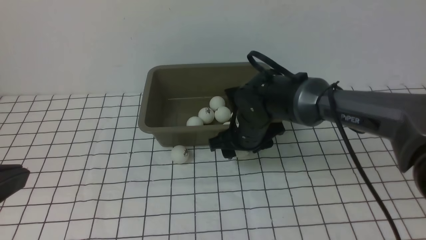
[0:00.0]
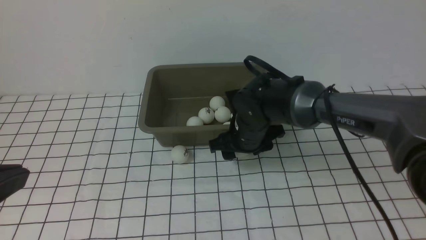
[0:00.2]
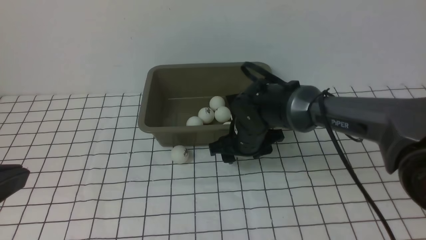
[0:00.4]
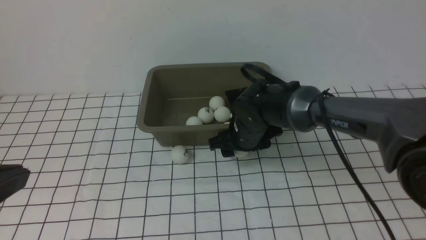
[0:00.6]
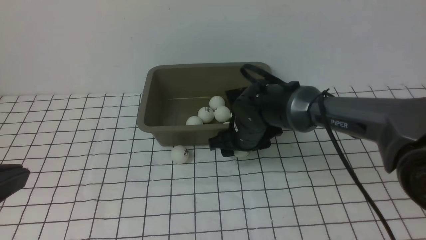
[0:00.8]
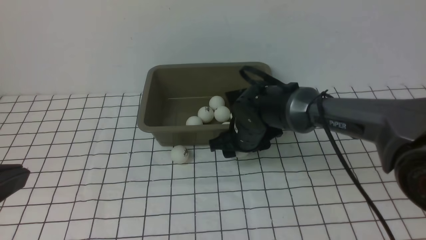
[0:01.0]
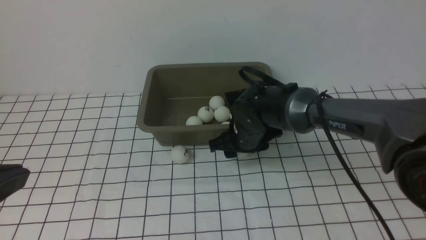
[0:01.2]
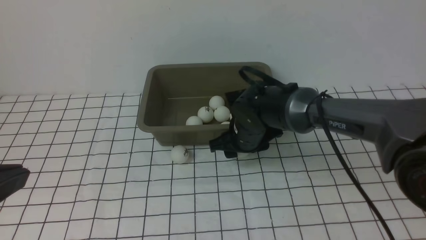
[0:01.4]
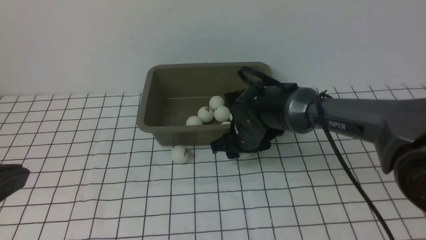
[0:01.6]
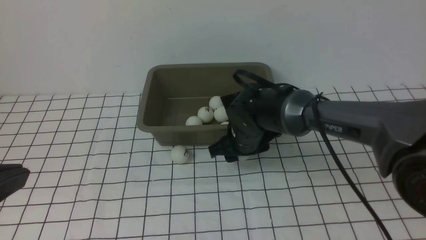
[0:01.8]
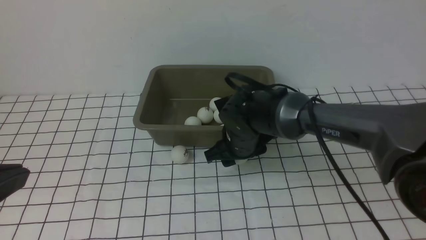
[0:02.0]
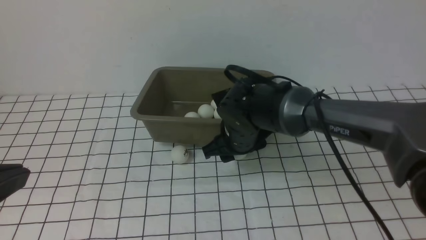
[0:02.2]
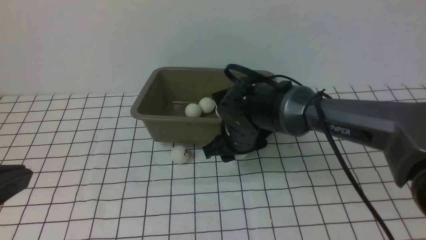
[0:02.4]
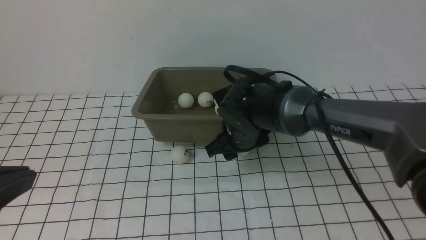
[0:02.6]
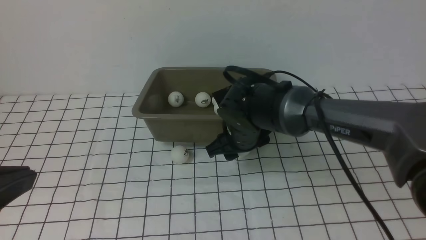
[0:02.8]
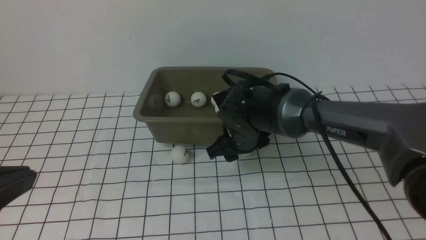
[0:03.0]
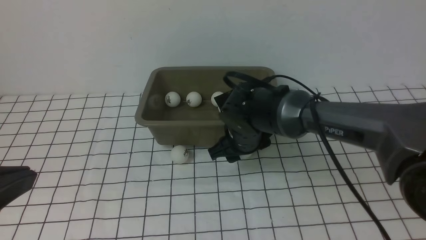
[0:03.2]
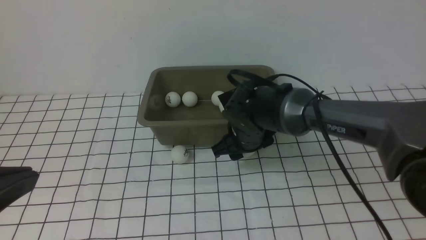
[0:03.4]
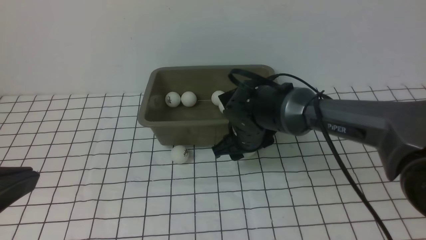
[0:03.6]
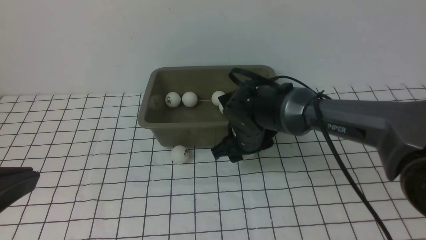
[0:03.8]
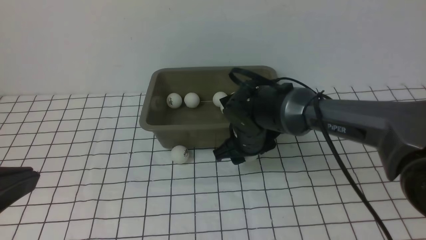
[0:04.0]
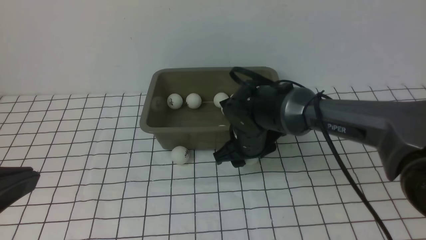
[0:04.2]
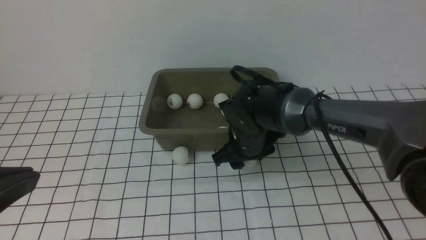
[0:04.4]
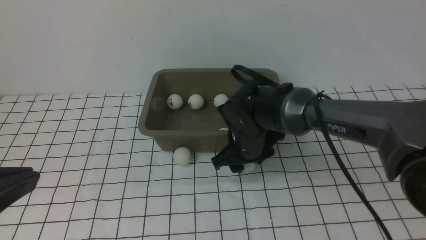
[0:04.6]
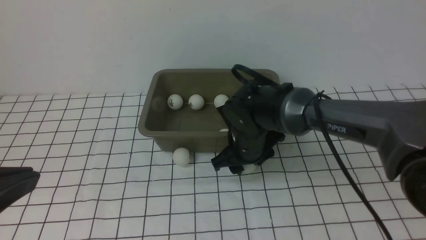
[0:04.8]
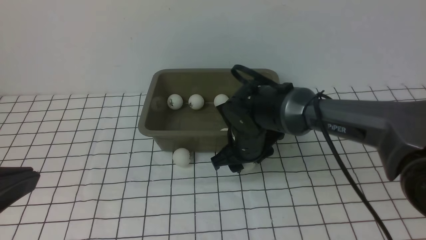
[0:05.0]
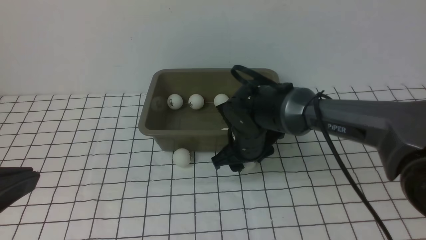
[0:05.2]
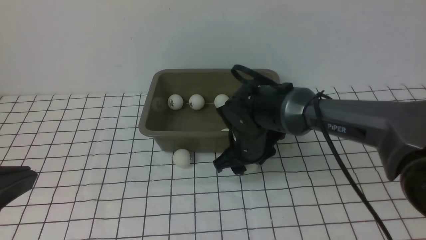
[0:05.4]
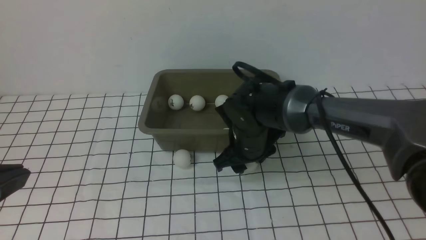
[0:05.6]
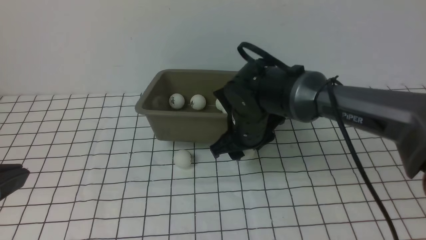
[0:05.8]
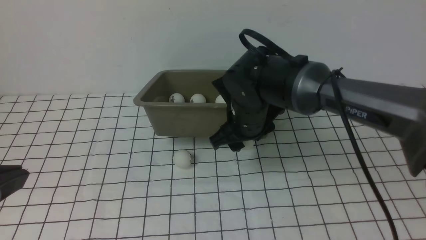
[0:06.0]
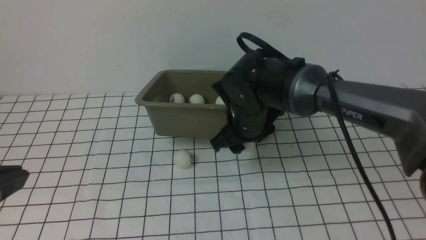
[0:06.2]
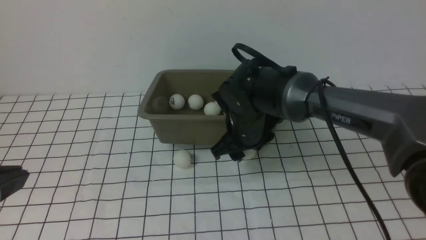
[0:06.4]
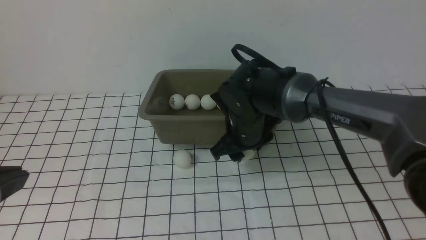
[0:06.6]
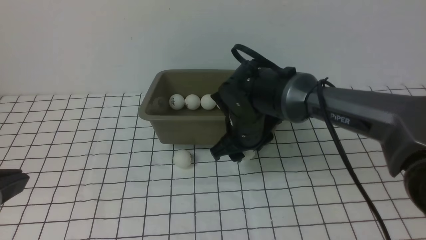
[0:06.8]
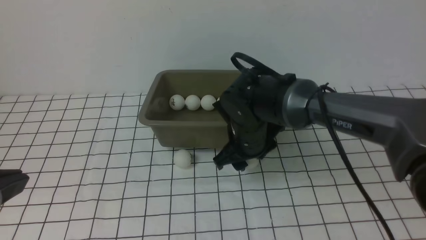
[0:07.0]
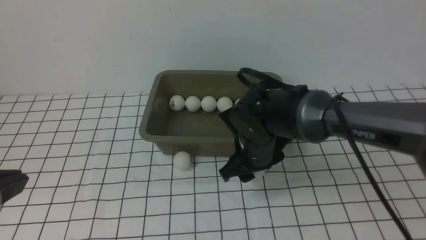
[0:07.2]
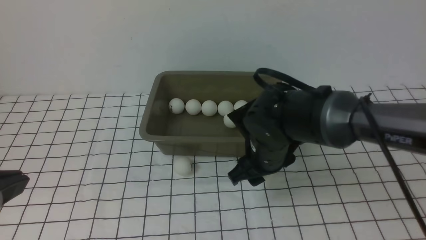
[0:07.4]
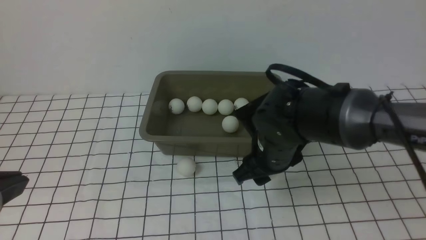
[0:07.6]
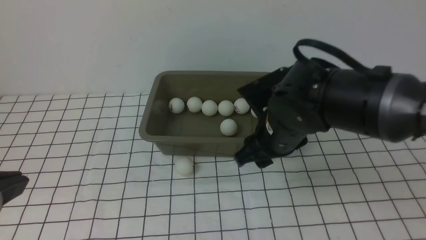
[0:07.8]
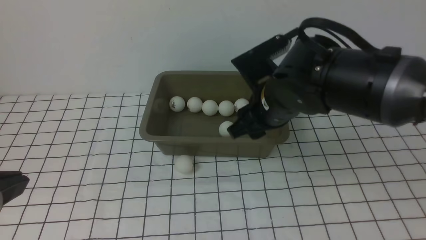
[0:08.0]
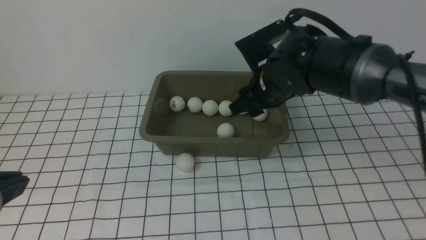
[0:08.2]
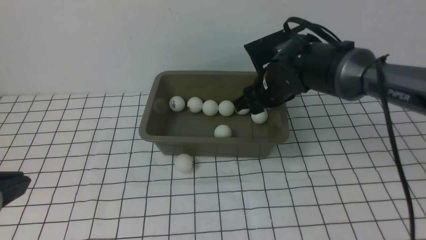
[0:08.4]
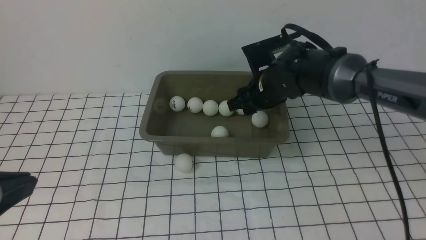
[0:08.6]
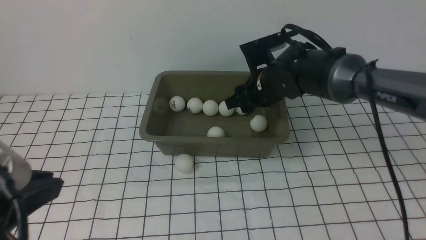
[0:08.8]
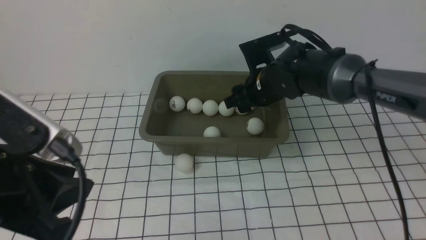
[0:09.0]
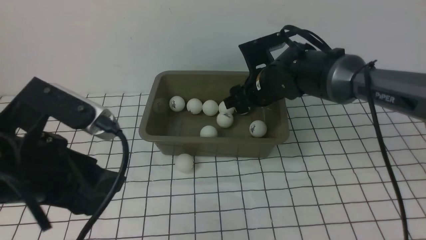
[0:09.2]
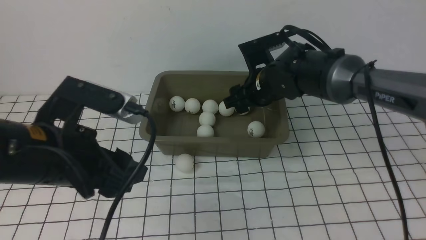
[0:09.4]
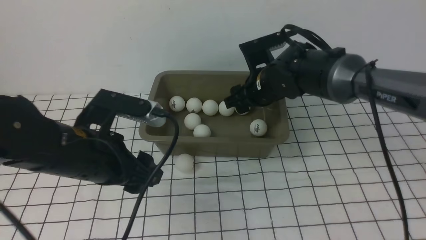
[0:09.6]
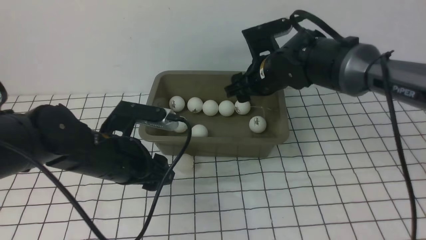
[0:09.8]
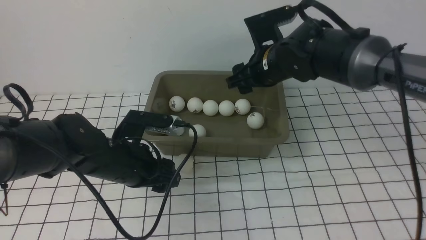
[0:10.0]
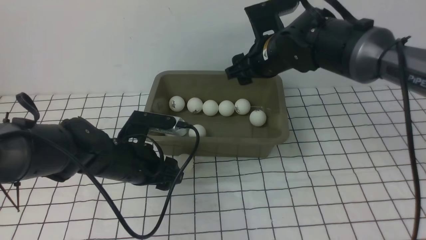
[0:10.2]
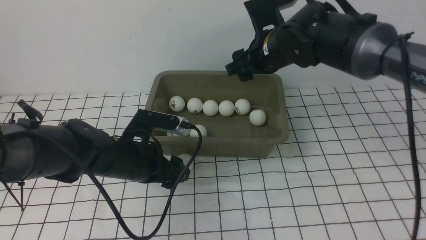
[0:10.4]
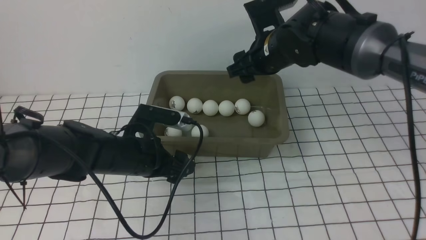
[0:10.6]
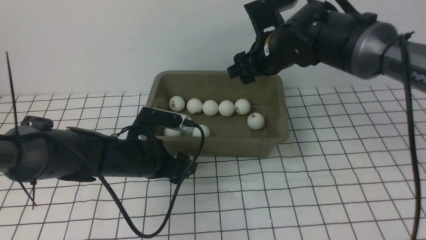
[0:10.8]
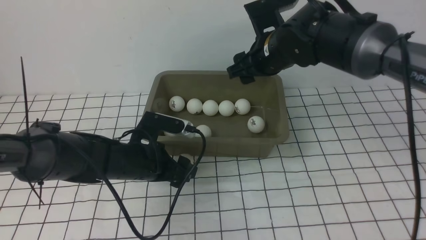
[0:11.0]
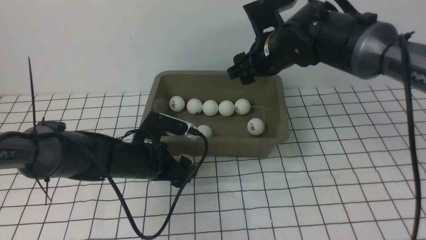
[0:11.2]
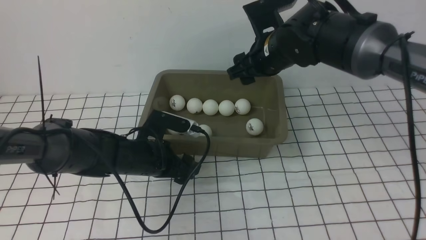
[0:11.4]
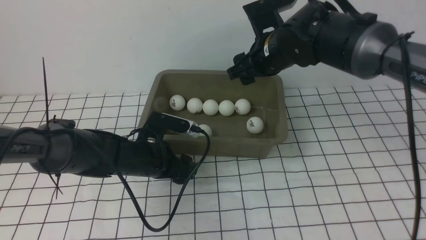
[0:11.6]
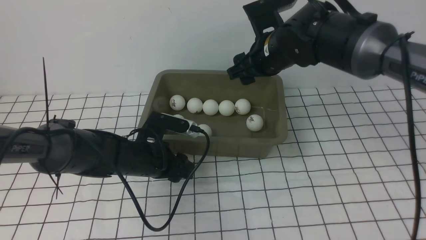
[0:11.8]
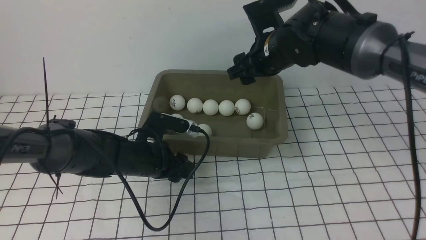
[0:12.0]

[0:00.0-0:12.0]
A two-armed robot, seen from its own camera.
Step, 0:00.0 to 0:07.6: use the right arm to clamp the table tennis ball closest to it.
Step, 0:07.8 to 0:09.2: use the right arm to put the table tennis ball into the box.
0:00.0 to 0:06.0: The grippers make only small movements.
0:06.0 to 0:07.6: The right gripper shifts some 5 cm backward.
0:07.6 to 0:09.0: The right gripper is displaced forward by approximately 10 cm. Meanwhile the left gripper shifts by approximately 5 cm, and opens up.
0:09.0 to 0:10.4: The left gripper heads downward and forward, covering approximately 25 cm, and opens. The right gripper moves upward, approximately 5 cm.
0:10.4 to 0:12.0: The left gripper closes its fingers.

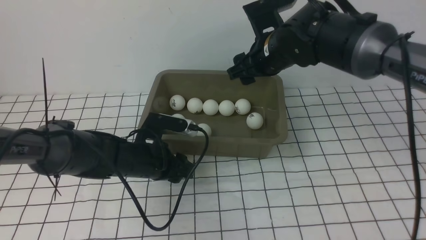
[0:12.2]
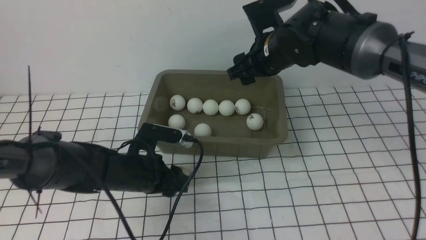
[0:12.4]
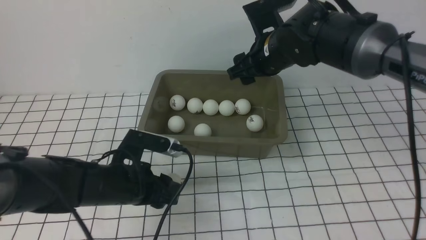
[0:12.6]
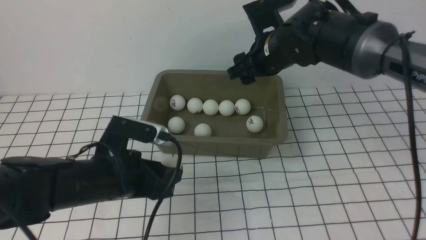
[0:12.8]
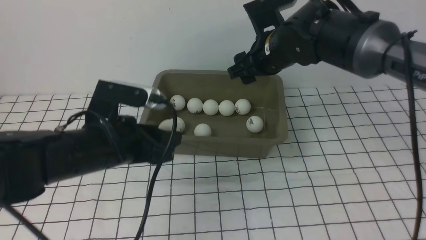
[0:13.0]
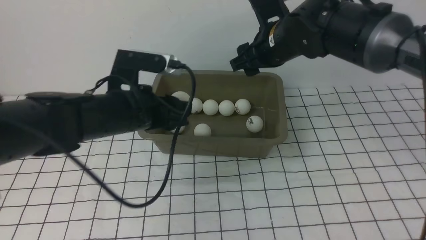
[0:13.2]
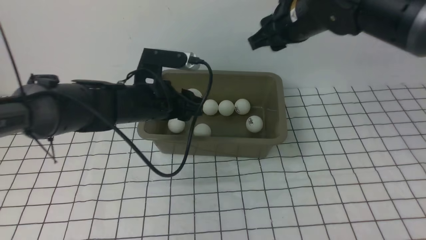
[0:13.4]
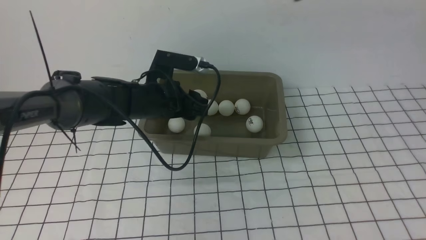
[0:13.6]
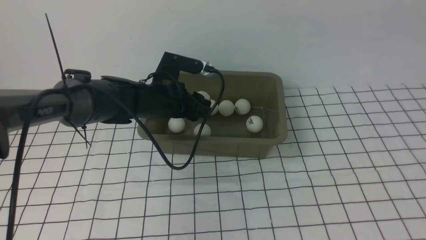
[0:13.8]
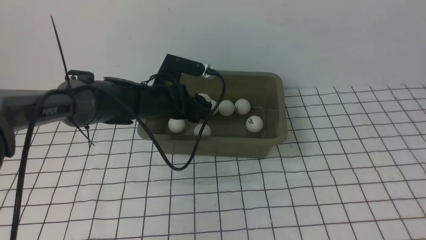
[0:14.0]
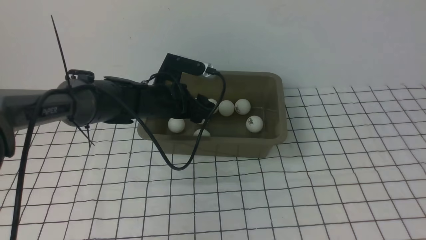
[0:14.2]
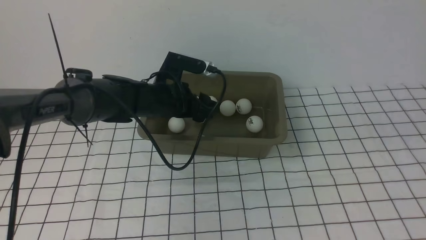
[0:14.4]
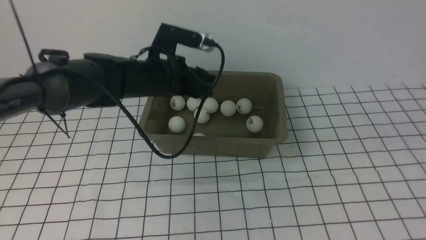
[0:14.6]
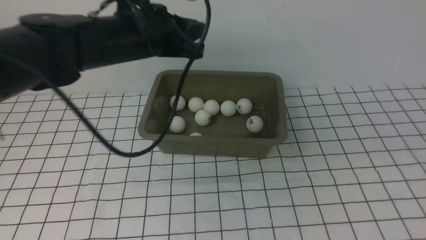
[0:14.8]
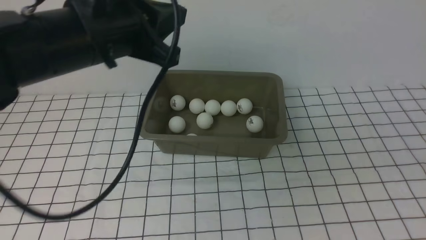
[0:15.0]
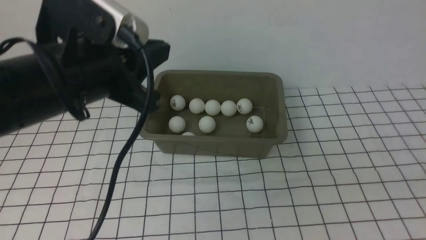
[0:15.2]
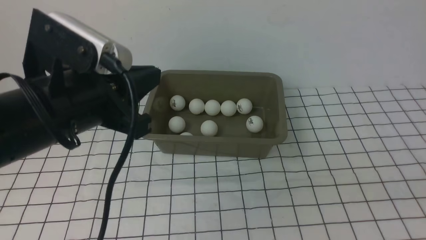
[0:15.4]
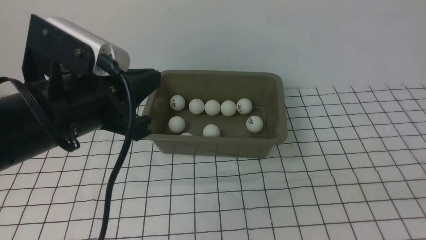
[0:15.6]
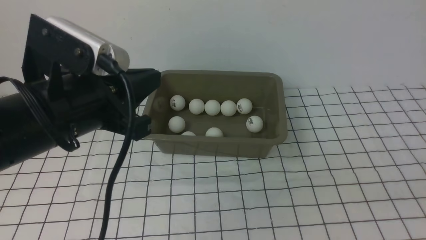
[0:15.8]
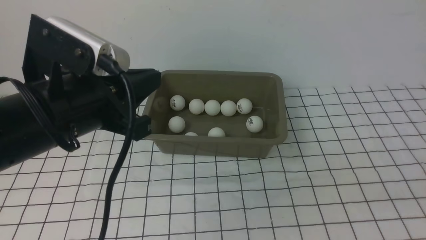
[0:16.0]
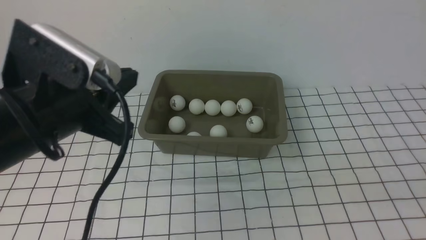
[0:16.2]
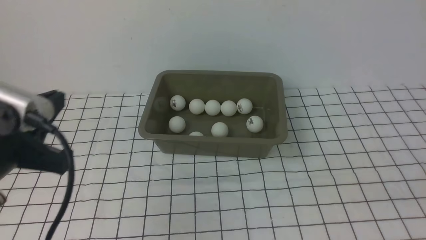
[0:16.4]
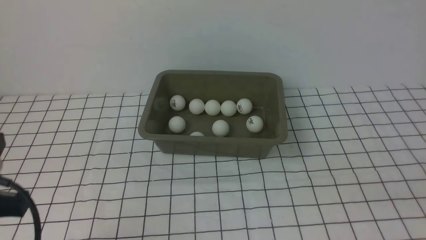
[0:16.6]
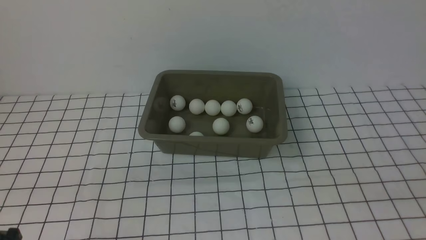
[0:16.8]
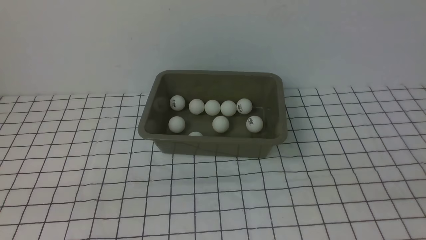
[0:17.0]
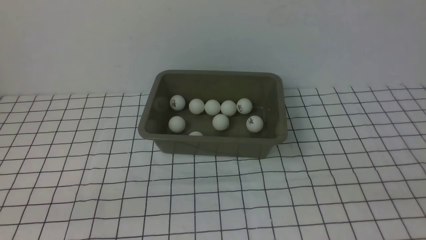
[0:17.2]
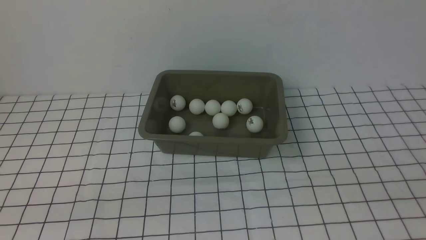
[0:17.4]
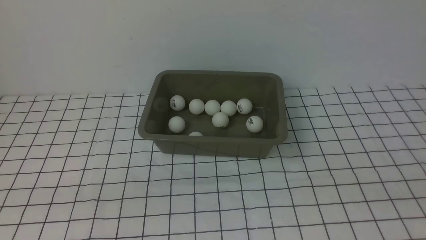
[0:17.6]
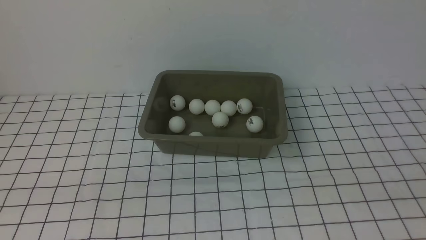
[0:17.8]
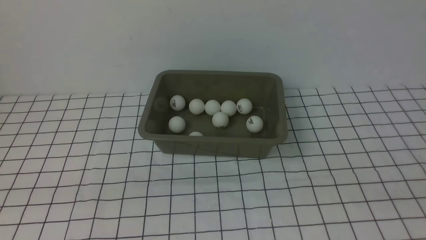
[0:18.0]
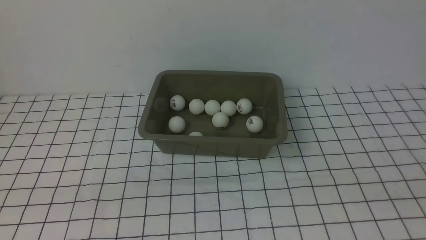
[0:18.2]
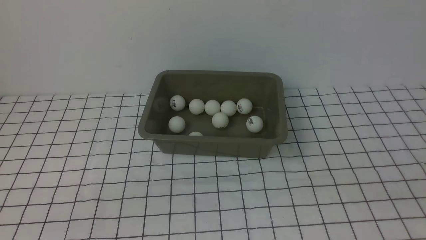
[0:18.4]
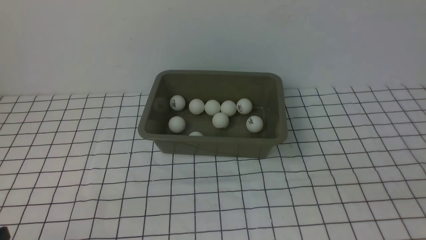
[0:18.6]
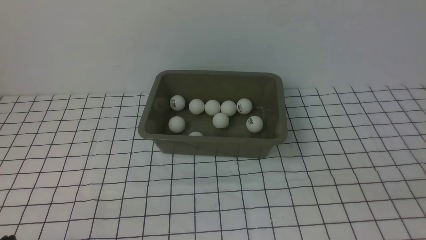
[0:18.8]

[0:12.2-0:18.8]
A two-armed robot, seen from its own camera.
Step, 0:12.8 to 0:14.2: use the left arm to put the table tennis ball into the box.
0:12.2 to 0:13.8: The right gripper shifts approximately 25 cm upward, backward and to the right, and closes up; the left gripper moves forward and upward, roughly 10 cm.
0:13.8 to 0:15.4: The left gripper moves backward and upward, some 25 cm, and closes, while the right gripper travels backward, downward and to the right by roughly 30 cm.
0:15.4 to 0:17.2: The left gripper is displaced backward, downward and to the left by some 25 cm.
